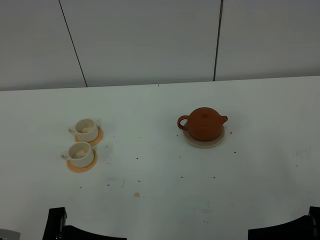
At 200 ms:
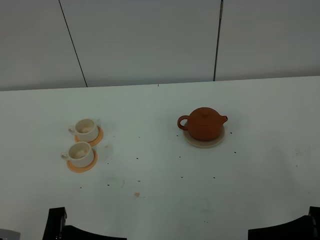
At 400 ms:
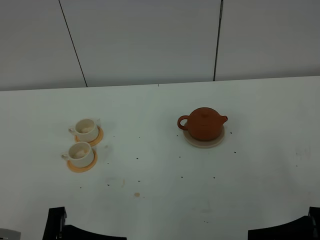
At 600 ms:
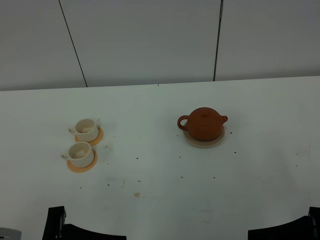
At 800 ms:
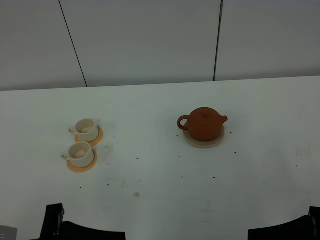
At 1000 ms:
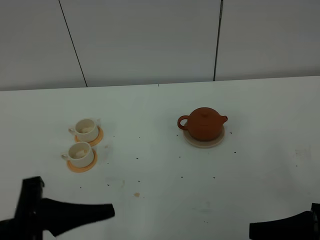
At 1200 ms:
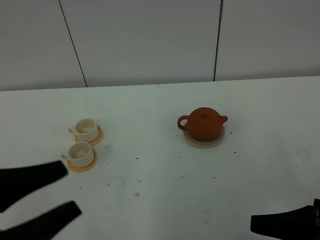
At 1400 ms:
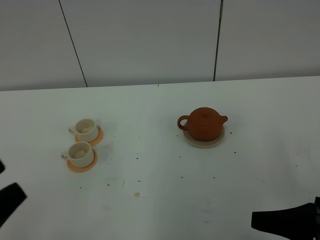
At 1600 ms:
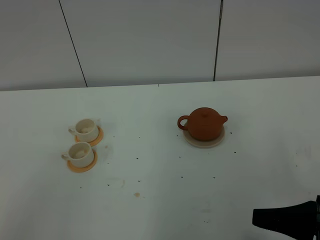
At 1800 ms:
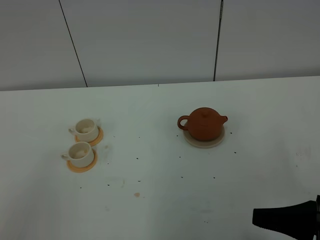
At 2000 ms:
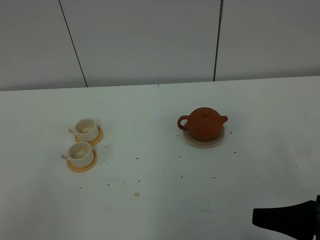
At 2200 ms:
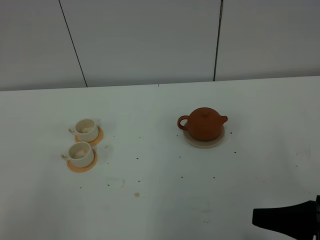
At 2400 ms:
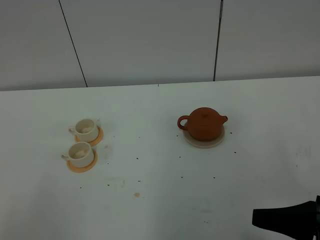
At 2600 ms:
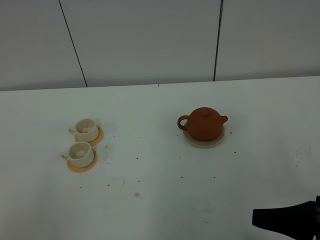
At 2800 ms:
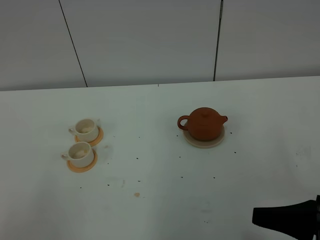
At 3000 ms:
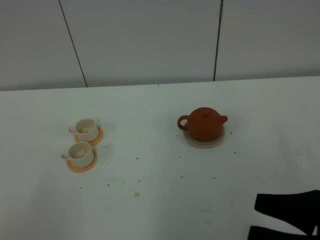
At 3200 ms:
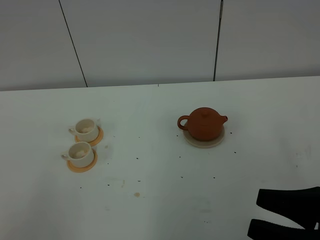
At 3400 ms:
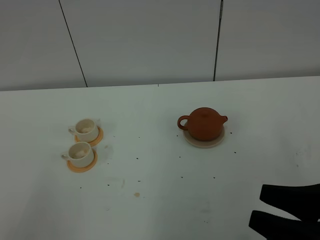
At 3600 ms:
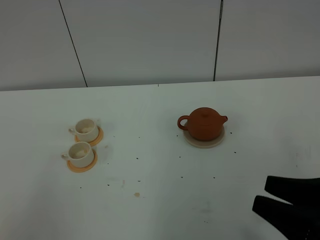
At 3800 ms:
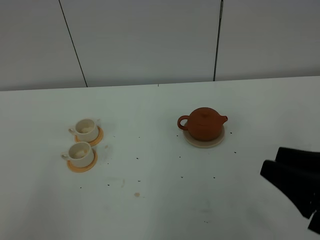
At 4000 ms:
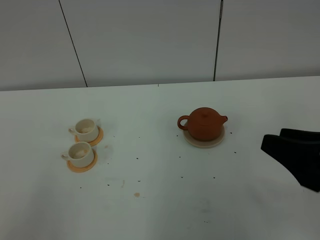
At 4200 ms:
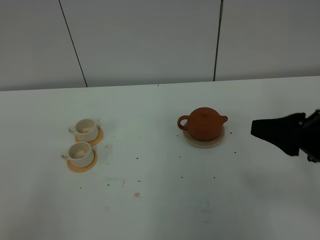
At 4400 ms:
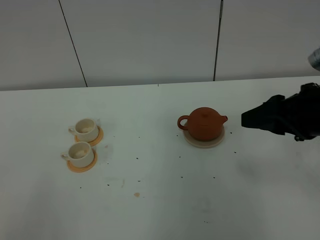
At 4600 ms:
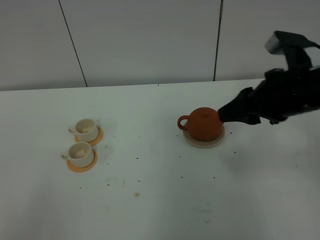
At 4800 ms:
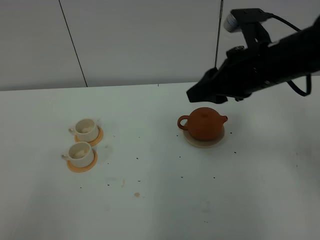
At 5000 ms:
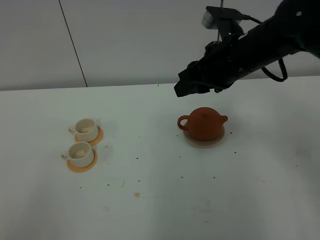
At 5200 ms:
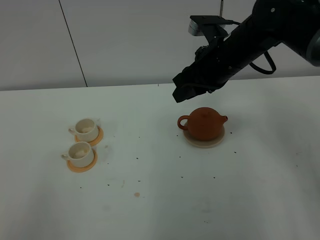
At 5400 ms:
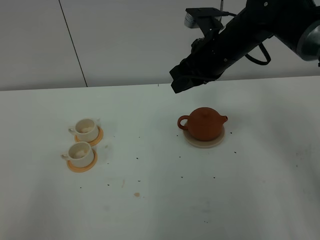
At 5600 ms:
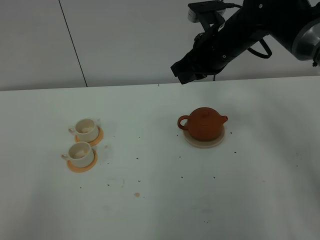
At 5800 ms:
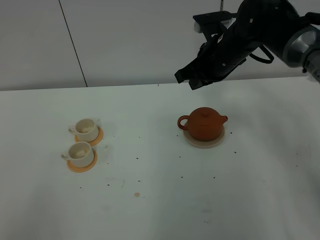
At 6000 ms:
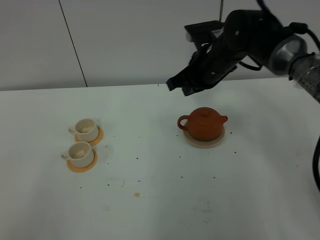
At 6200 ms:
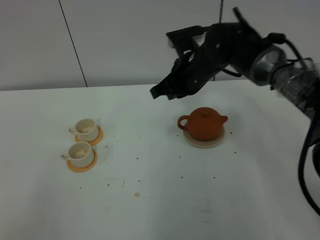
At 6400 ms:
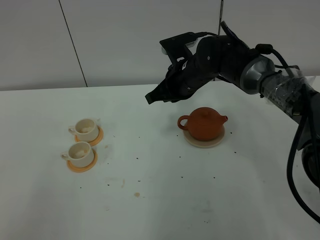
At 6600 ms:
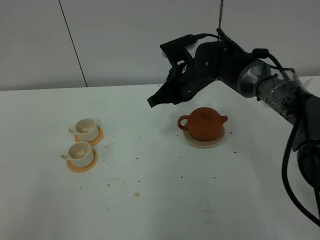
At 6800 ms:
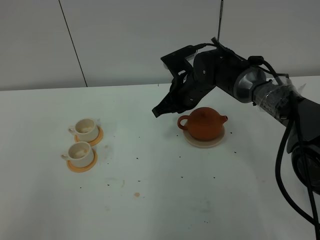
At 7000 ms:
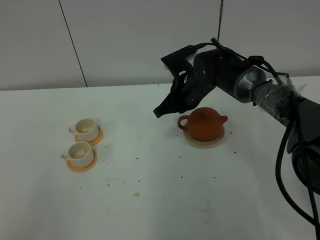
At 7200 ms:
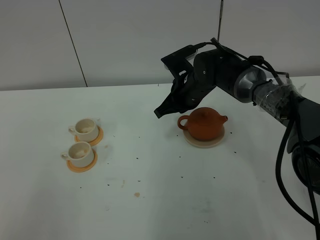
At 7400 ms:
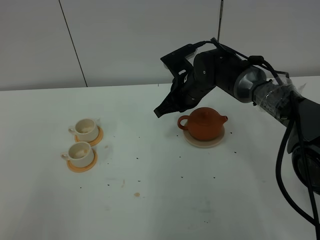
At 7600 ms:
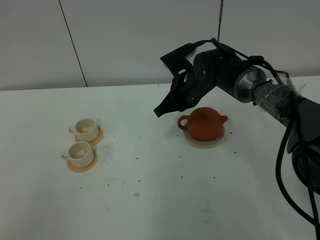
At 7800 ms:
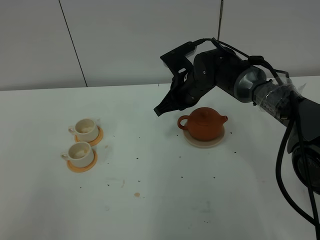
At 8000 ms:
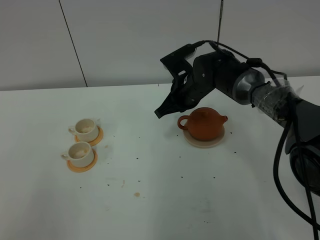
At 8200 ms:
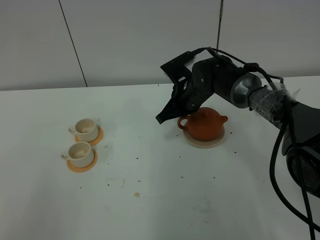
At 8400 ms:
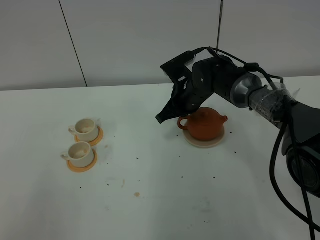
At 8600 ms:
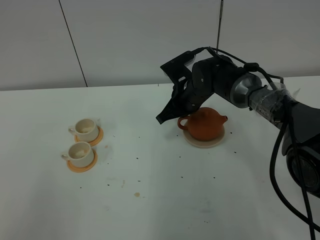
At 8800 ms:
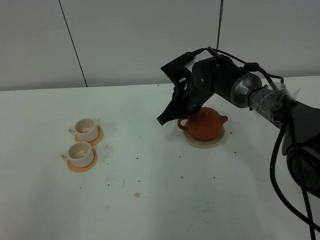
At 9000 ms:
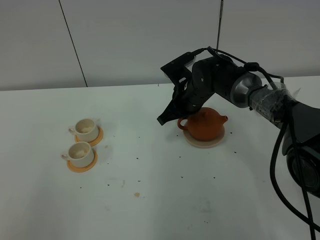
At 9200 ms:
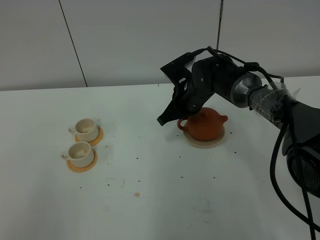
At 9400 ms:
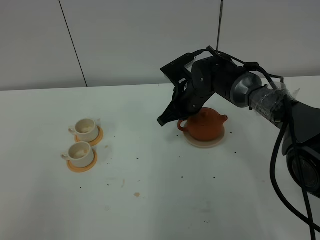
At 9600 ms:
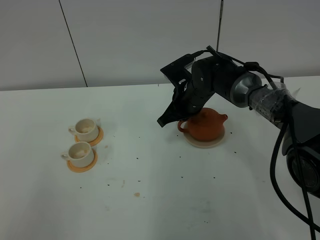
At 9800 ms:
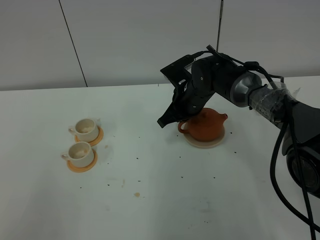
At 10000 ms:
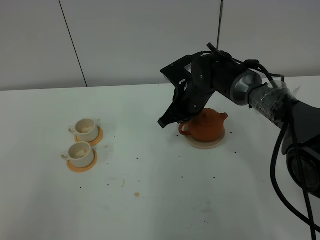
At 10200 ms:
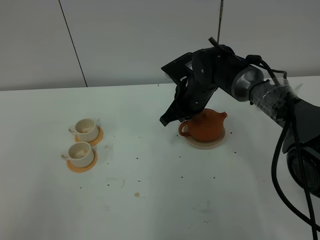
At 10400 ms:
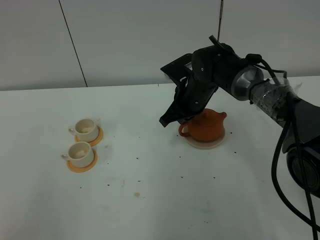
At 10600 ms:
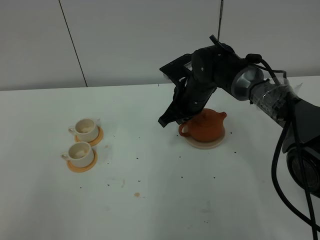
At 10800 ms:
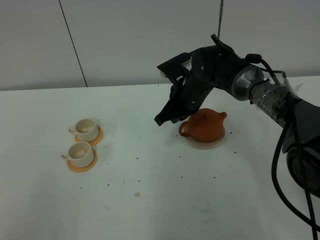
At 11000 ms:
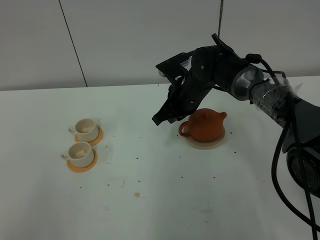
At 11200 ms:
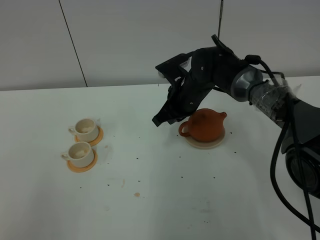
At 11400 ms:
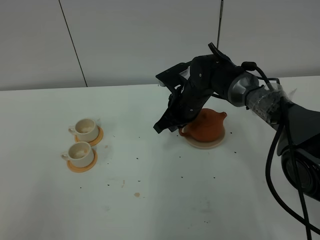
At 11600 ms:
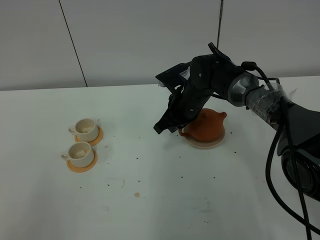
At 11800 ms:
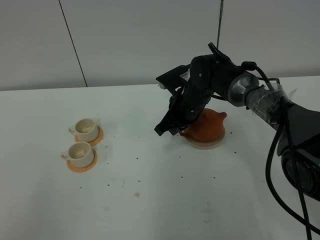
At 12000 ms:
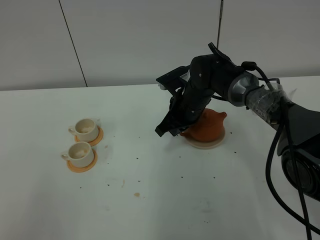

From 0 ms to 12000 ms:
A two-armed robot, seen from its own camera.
Task of the whole recording: grasp the brown teapot and pour the tea into the two white teacups one by one, put the brown teapot back in its original place.
From 0 ms to 1600 ms: The left gripper goes about 15 cm upward, to the left and backward.
From 3000 ms to 4400 ms: The right gripper travels forward by some 15 cm.
From 4400 ms to 6000 ms: The right gripper moves forward and to the left, approximately 25 cm, and closes its fingers.
From 6000 ms to 7600 ms: The right gripper heads downward, covering approximately 5 cm.
From 7600 ms to 12000 ms: The grippers stay close to where they were, moving slightly.

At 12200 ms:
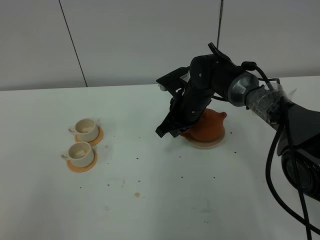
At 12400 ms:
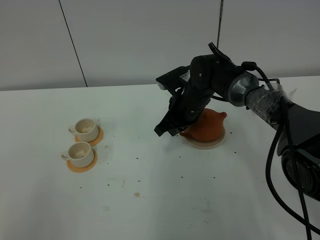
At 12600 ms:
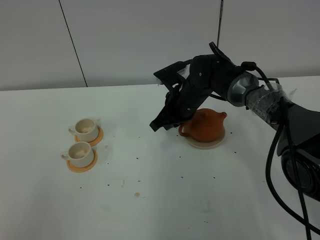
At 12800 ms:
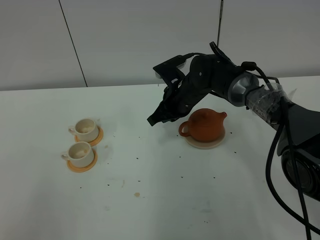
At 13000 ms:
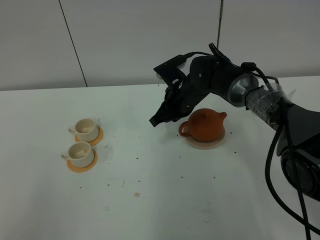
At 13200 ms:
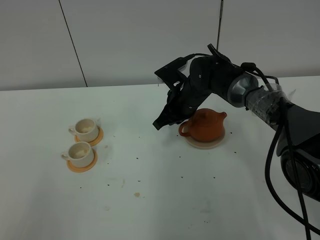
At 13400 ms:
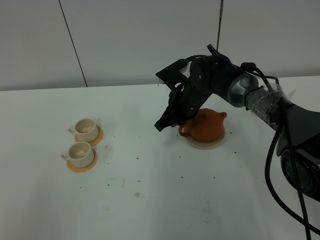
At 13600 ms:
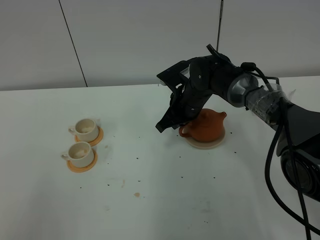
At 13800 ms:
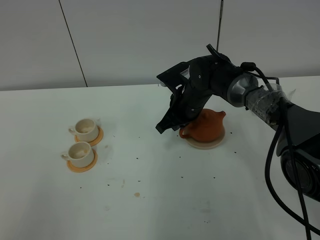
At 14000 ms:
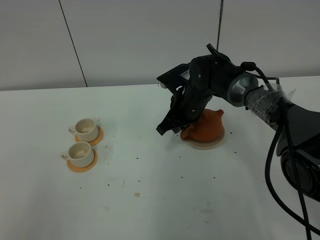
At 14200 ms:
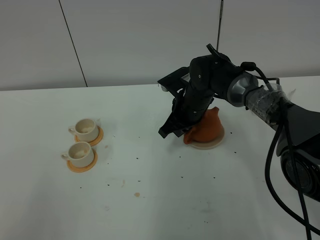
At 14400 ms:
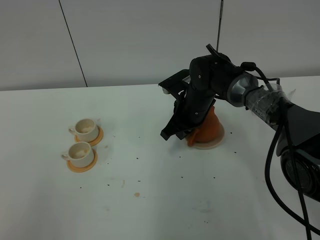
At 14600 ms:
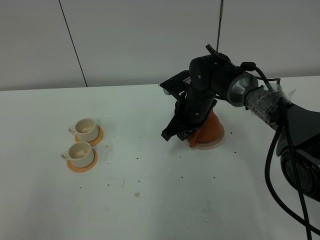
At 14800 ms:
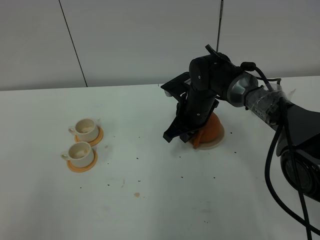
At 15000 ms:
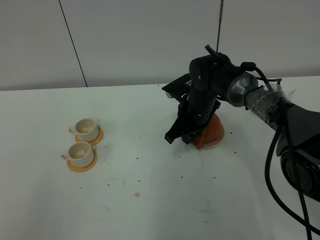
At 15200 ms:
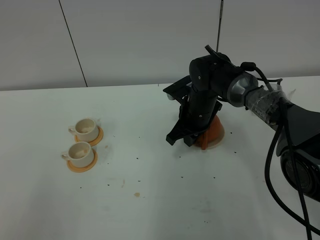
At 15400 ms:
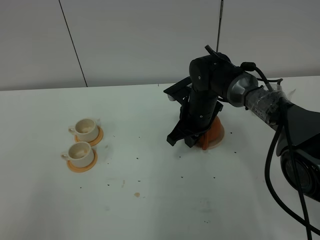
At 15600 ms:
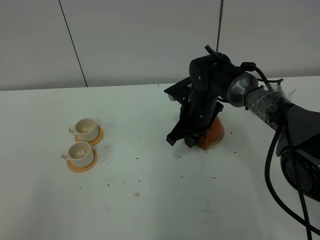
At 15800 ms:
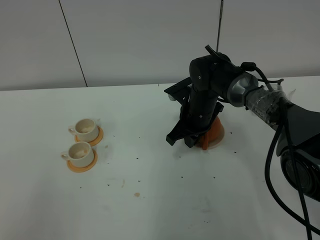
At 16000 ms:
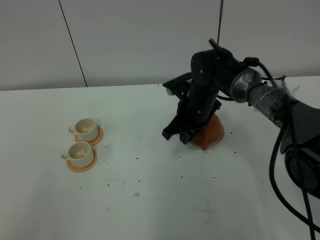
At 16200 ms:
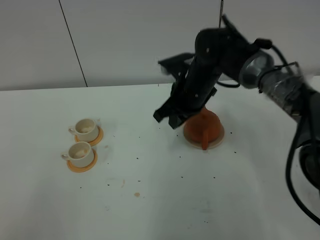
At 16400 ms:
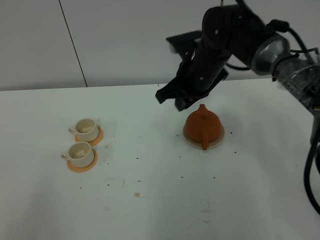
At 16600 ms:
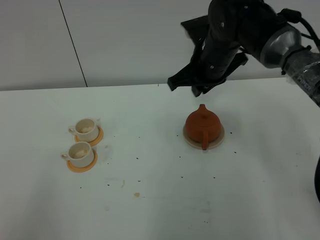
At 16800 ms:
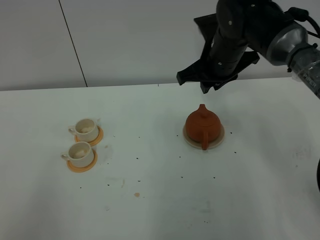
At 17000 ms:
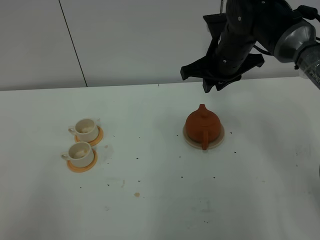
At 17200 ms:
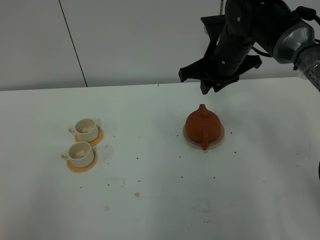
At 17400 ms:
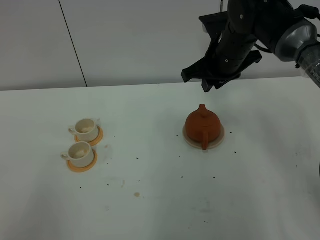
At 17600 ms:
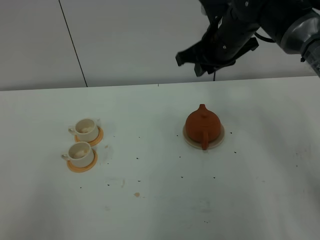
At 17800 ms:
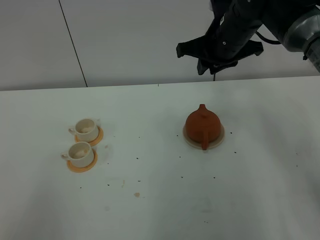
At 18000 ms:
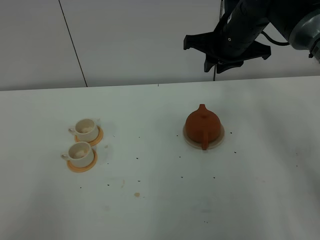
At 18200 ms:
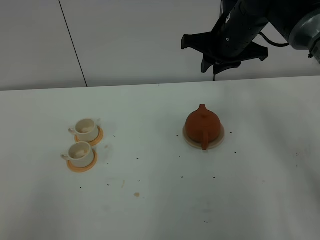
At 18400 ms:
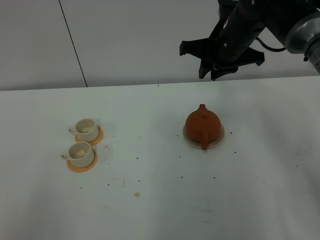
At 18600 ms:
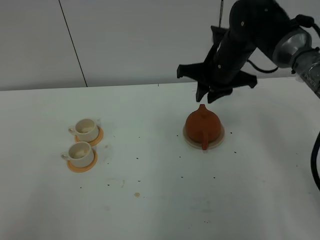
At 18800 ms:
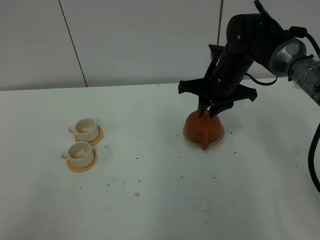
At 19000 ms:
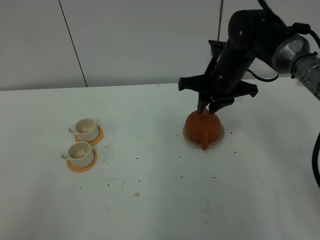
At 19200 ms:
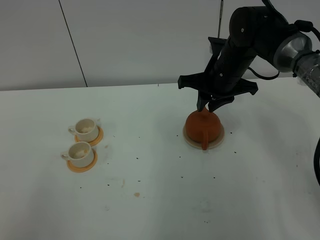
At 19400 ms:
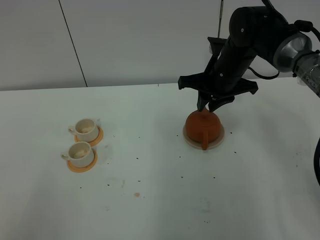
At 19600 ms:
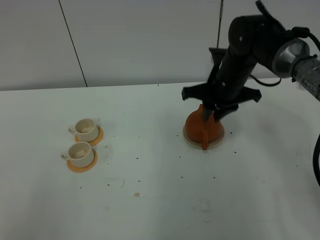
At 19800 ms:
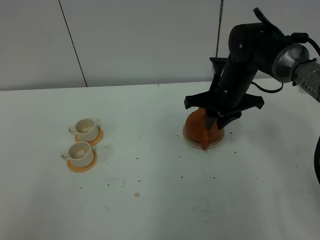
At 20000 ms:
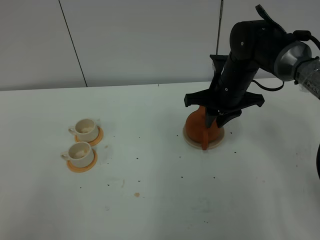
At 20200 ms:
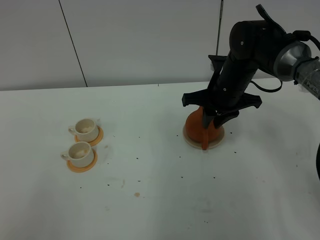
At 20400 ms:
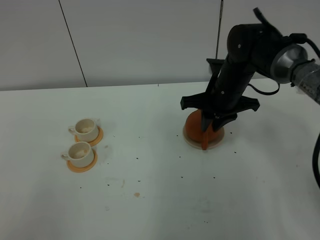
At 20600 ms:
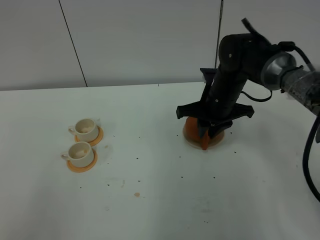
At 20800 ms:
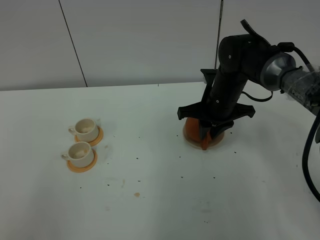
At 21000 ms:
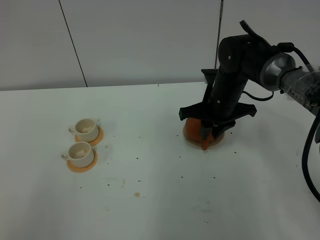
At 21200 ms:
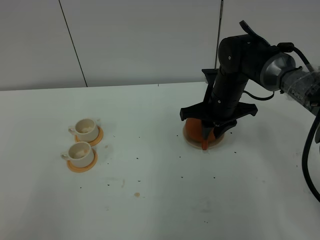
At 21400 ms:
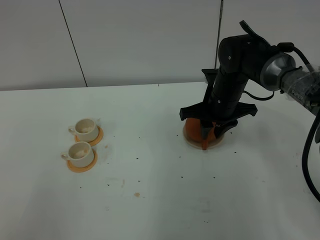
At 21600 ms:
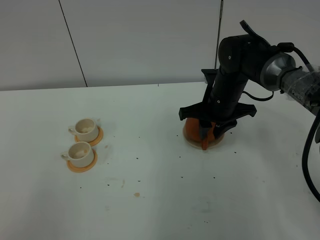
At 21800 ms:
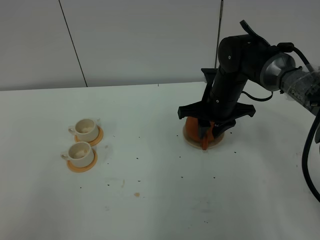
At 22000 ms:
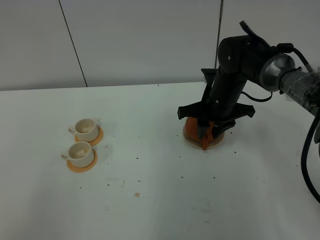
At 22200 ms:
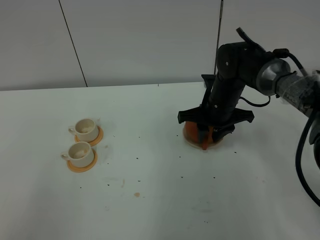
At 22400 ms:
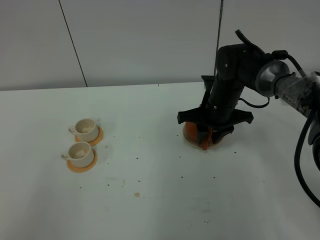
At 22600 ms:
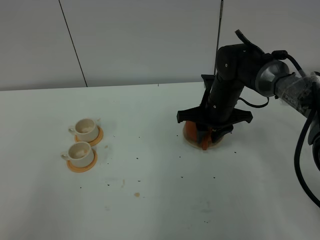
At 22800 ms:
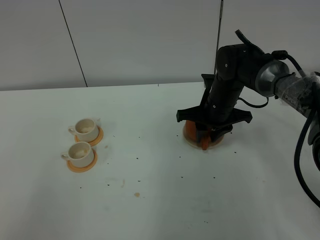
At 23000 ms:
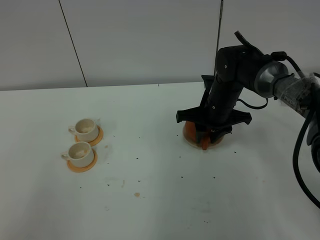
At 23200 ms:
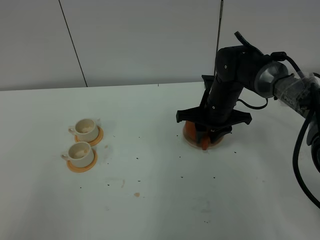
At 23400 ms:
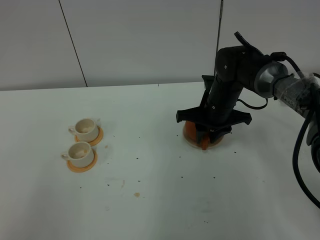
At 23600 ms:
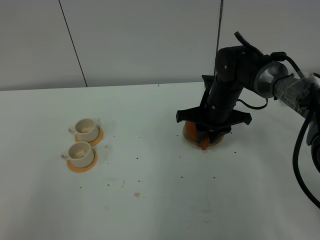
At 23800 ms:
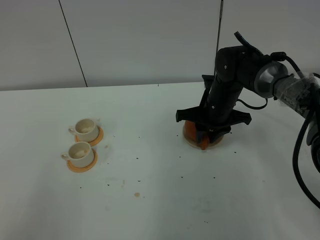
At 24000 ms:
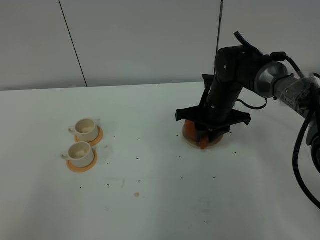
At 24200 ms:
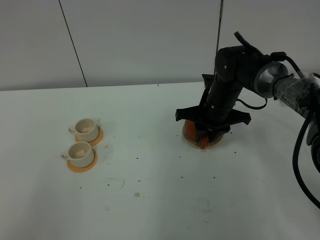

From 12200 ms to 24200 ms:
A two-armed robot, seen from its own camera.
Task of the whole recording: grasp the brown teapot and pour the tea into the two white teacups one by one, put the brown teapot back in its original place.
From 12200 ms to 15200 ms: The grippers make only small movements.
From 15200 ms to 16600 ms: The right gripper goes some 15 cm upward.
From 16600 ms to 18200 ms: The right gripper shifts by about 5 cm.
From 18200 ms to 19800 ms: The right gripper heads downward, covering roughly 10 cm.
From 19800 ms to 22600 ms: The grippers make only small movements.
From 22600 ms to 24200 ms: Neither gripper changes place.
